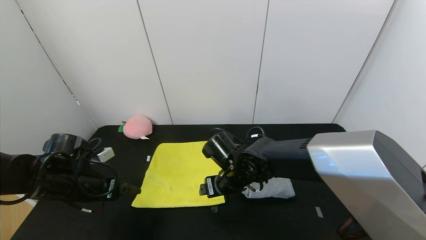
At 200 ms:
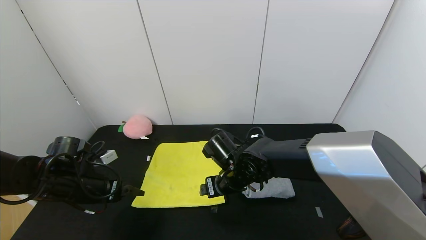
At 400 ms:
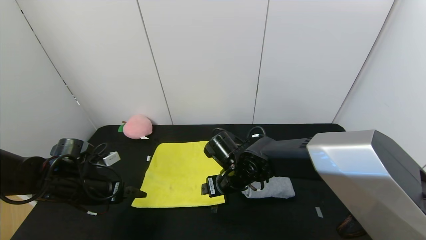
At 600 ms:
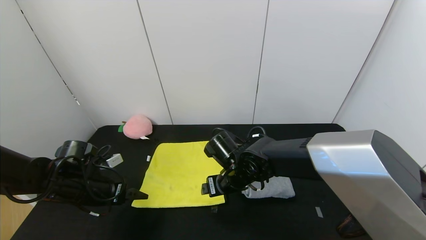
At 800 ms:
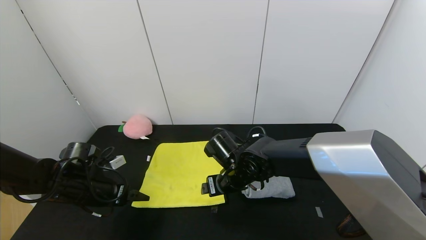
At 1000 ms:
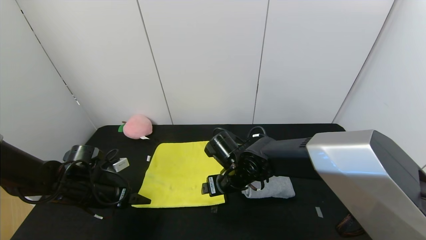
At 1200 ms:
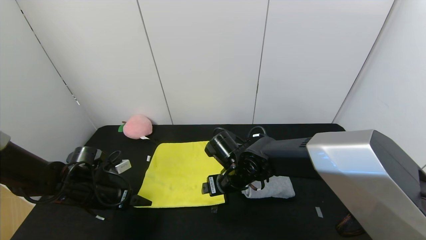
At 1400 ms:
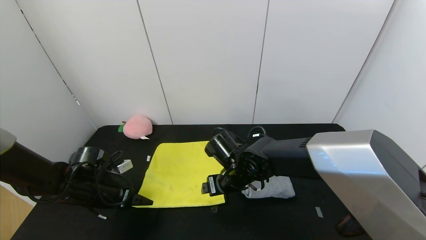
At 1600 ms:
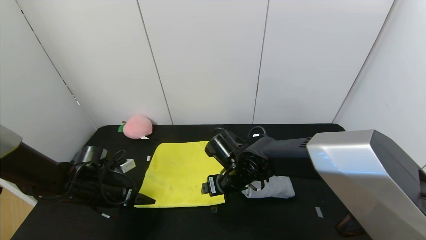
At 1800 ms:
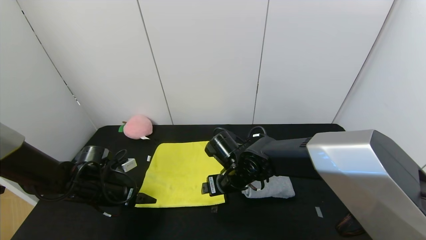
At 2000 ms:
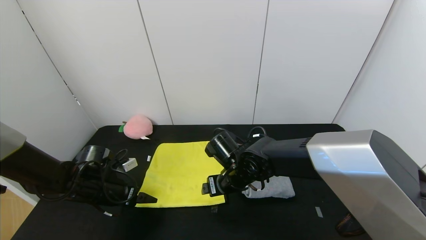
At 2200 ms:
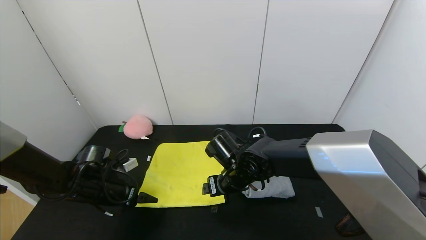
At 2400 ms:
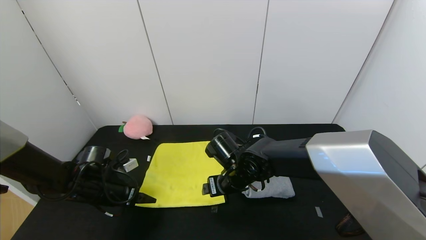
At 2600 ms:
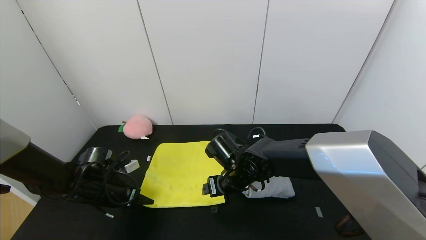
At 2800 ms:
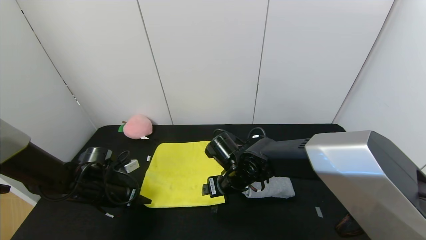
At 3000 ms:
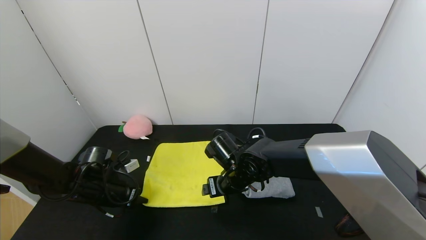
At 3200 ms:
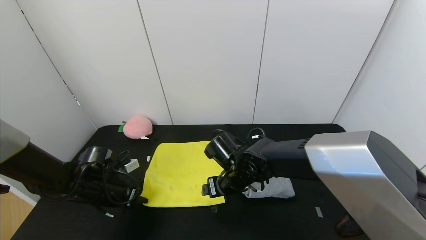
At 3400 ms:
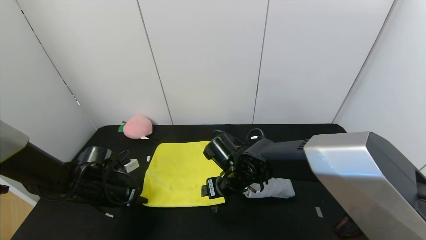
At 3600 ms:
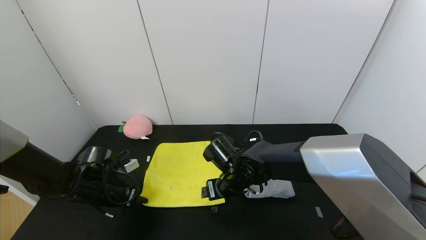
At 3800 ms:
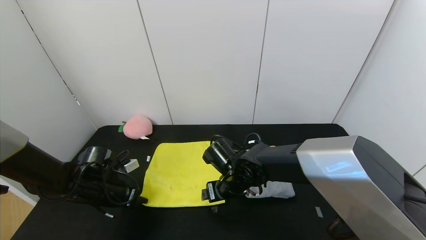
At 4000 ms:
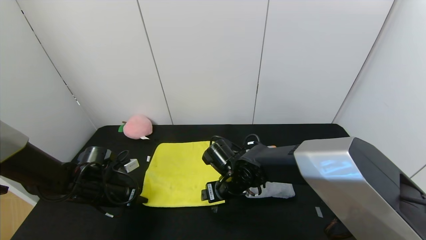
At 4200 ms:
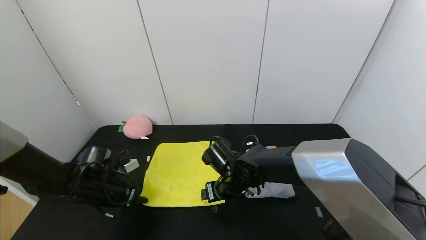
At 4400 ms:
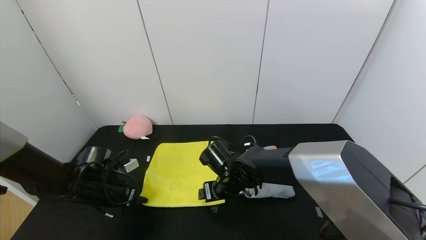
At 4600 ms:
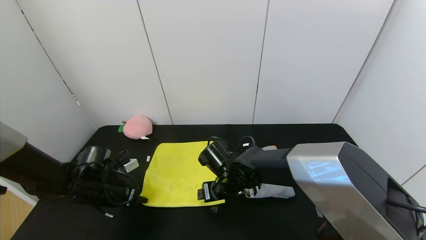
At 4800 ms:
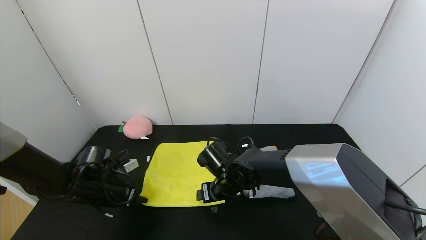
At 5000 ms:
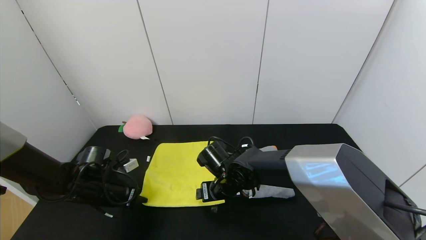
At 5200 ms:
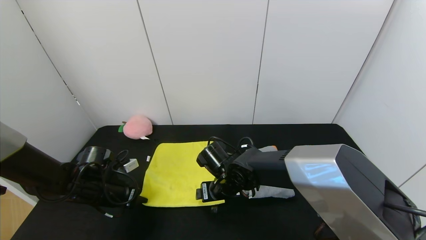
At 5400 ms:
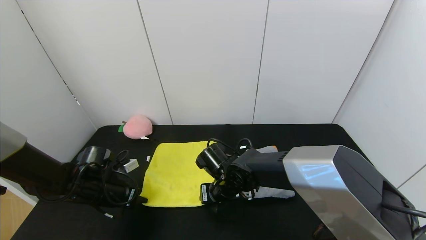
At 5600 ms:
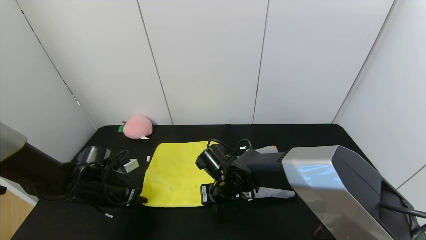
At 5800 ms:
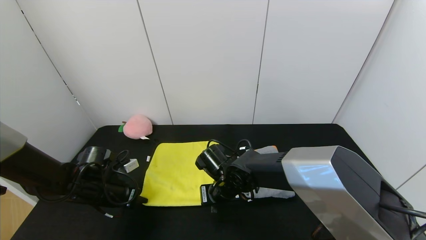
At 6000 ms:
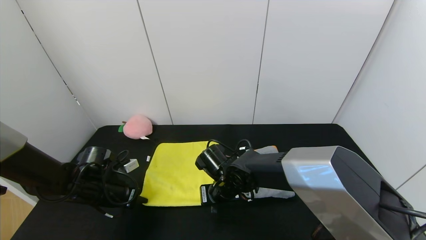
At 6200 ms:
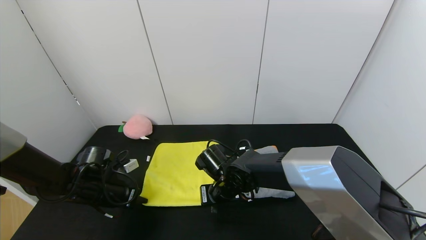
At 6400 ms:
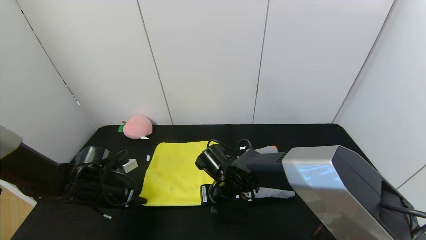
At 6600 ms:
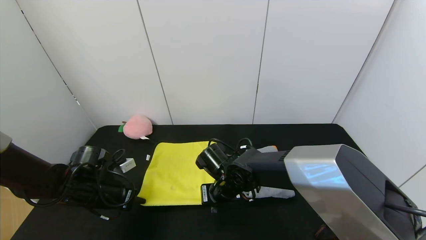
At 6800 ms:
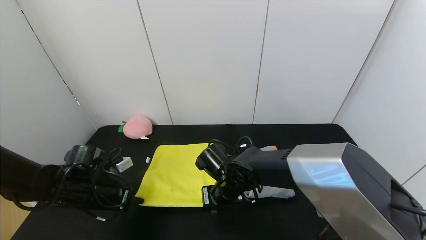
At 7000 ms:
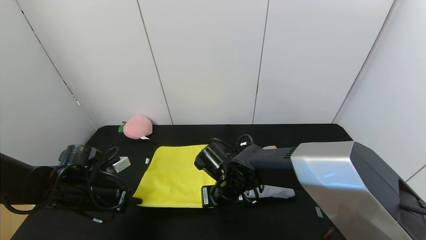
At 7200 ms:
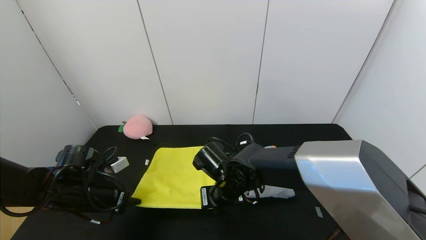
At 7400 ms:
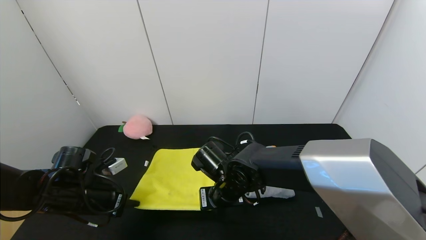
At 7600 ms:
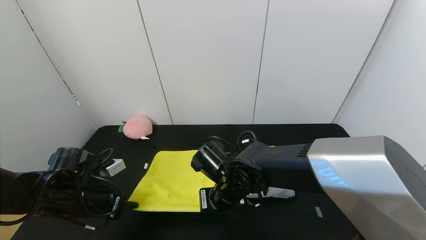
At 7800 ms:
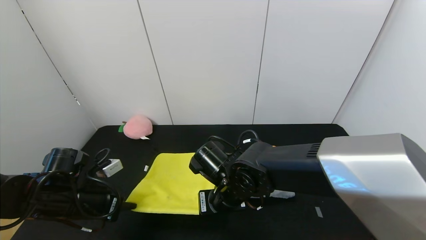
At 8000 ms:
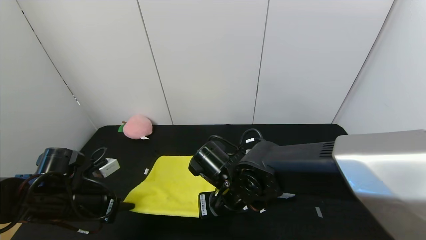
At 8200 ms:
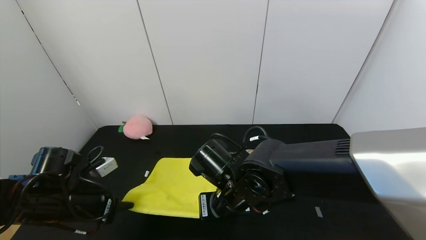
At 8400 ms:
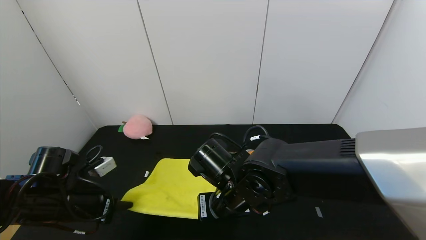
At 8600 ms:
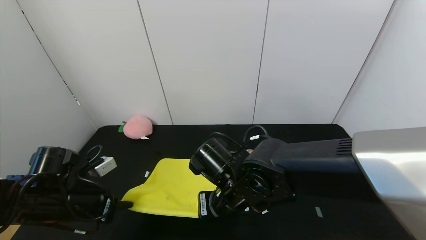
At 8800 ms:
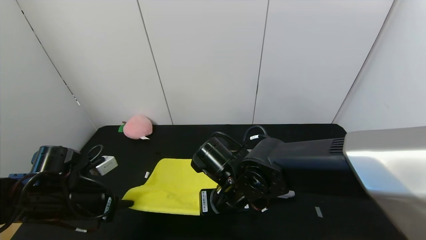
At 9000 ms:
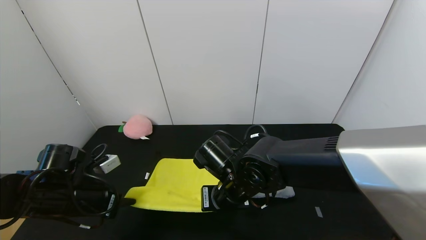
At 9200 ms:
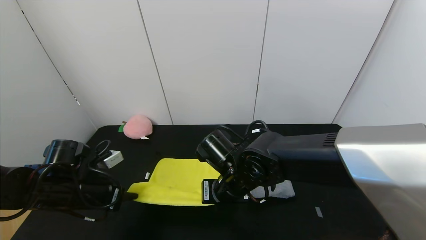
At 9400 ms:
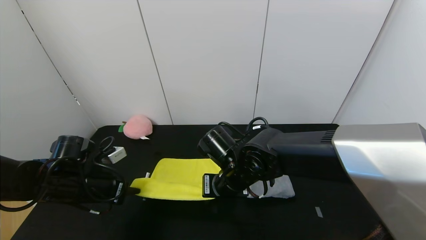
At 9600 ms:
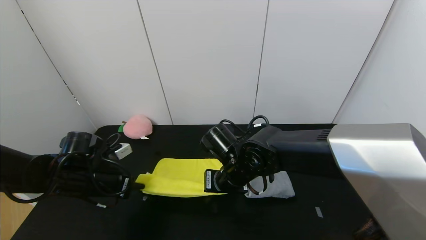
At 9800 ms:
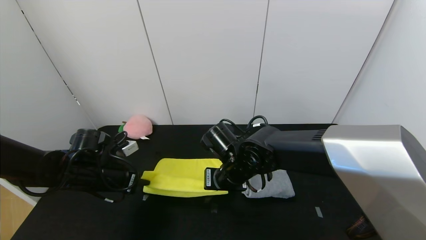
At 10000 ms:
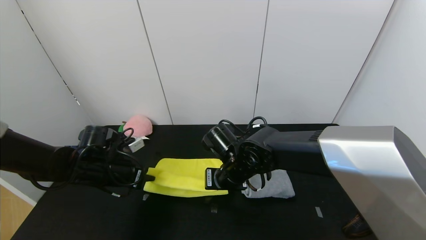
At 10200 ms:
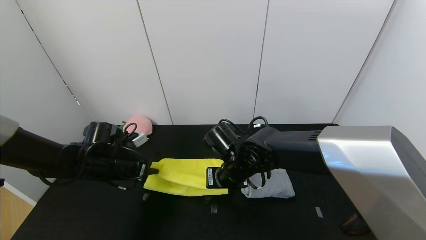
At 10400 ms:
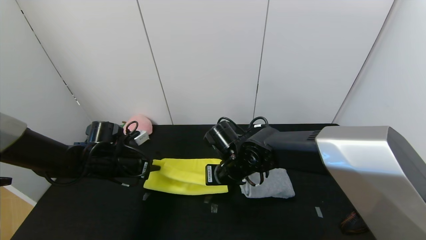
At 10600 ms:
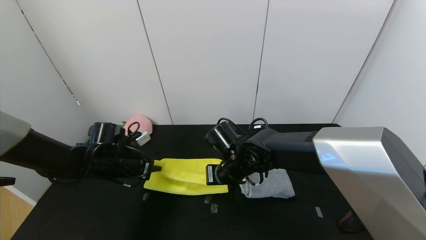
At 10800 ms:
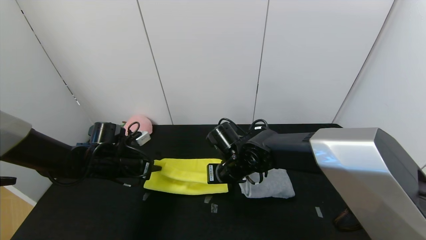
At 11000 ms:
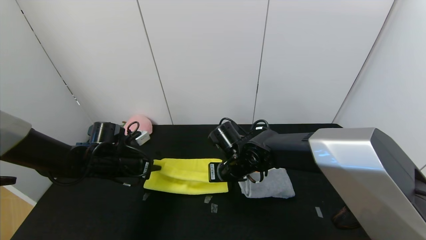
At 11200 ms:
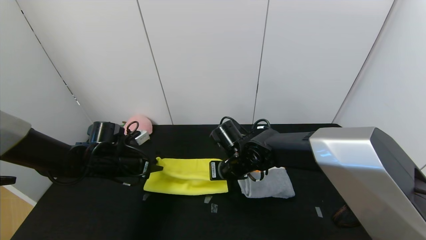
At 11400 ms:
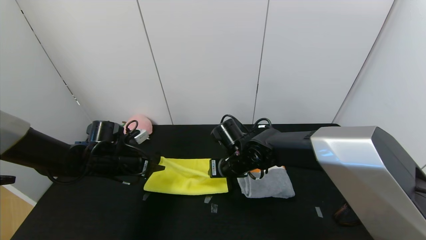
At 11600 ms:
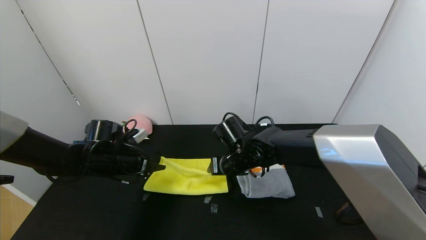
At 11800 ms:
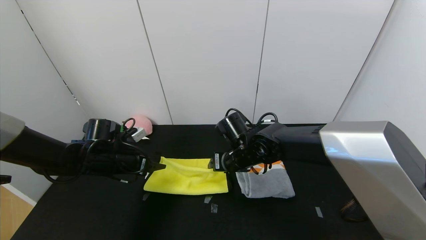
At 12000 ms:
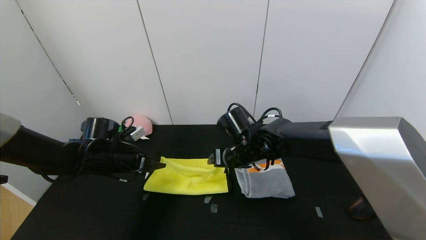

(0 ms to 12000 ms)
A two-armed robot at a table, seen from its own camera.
Task of the whole recording: Use the gripper to fold the yellow towel and grey towel in half twice,then put the yellow towel on the grey towel.
Step, 0 ms - 11800 ms: Fold the yellow towel upwards with the left gripper.
0 ms - 1600 ms: The left gripper shifts some 5 cm downward.
1600 ms - 3000 ms: The left gripper closes up.
3000 ms - 4400 ms: The grippers make only small movements.
4400 ms - 6000 ms: The right gripper closes its fingers.
6000 ms - 7600 ms: The right gripper moves roughly 5 cm. Meanwhile the left gripper shifts some 5 cm backward.
7600 ms - 9000 ms: The grippers stay close to where they were, moving slightly.
9000 ms - 10400 ms: The left gripper is displaced forward by roughly 10 cm, while the right gripper shifts roughly 5 cm forward.
10400 ms - 12000 ms: The right gripper opens up; the left gripper opens.

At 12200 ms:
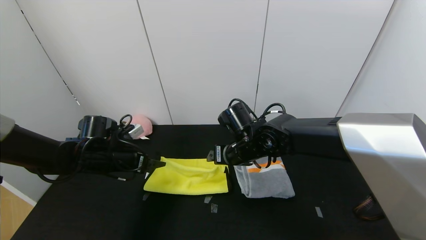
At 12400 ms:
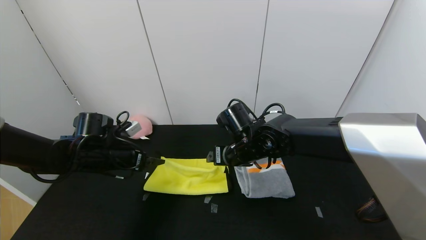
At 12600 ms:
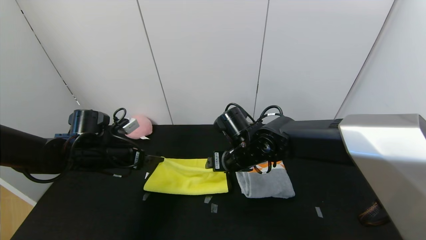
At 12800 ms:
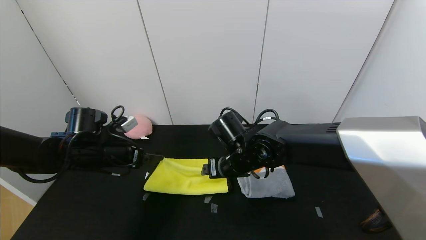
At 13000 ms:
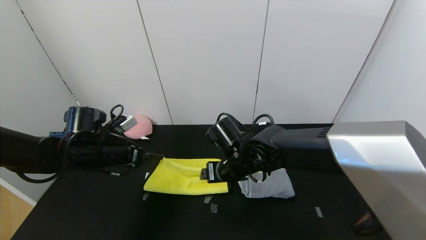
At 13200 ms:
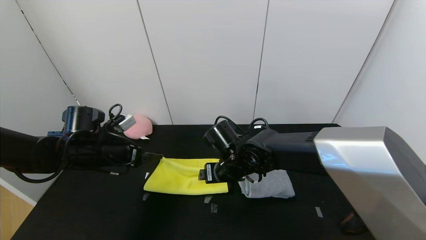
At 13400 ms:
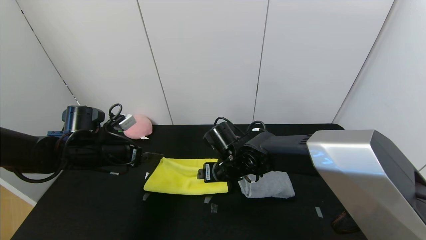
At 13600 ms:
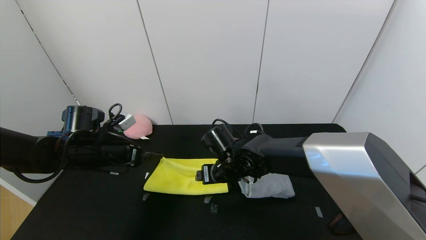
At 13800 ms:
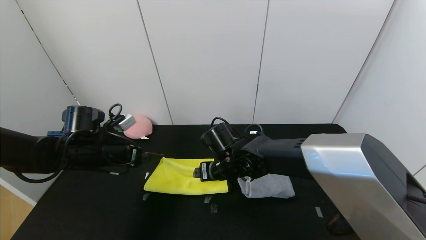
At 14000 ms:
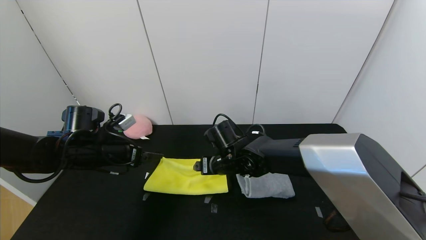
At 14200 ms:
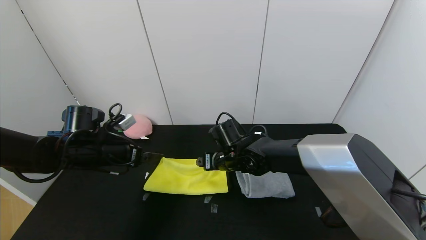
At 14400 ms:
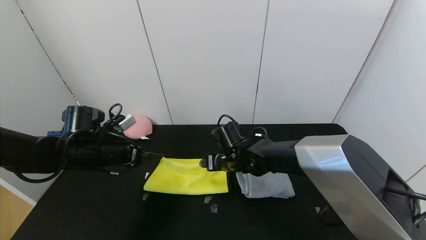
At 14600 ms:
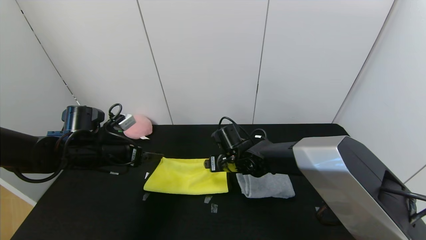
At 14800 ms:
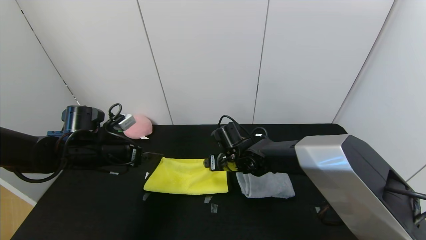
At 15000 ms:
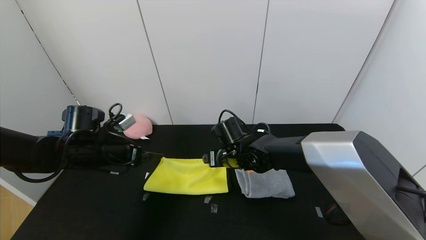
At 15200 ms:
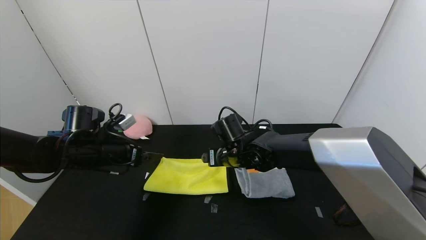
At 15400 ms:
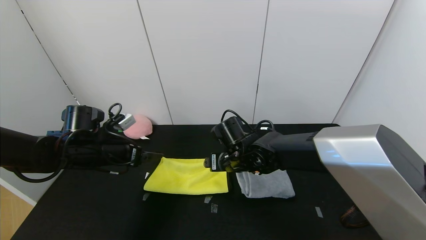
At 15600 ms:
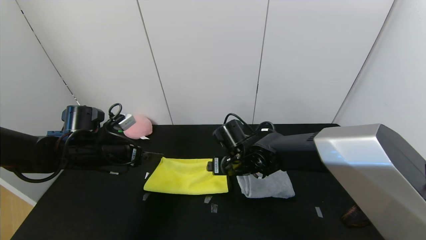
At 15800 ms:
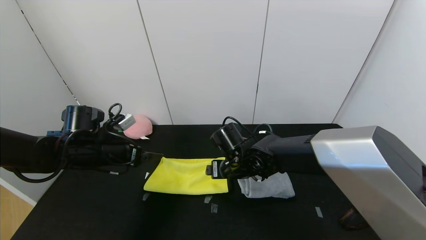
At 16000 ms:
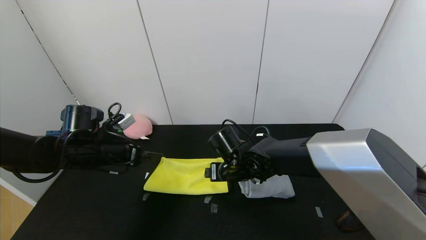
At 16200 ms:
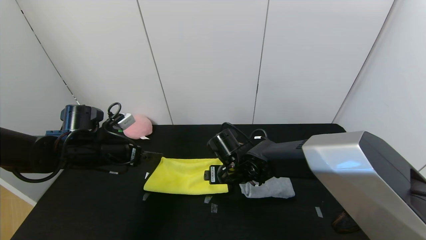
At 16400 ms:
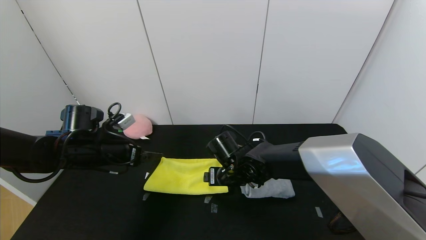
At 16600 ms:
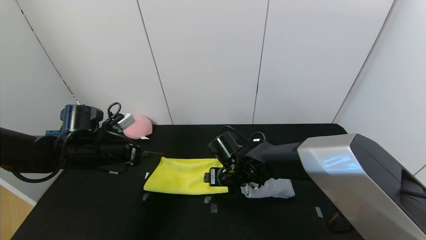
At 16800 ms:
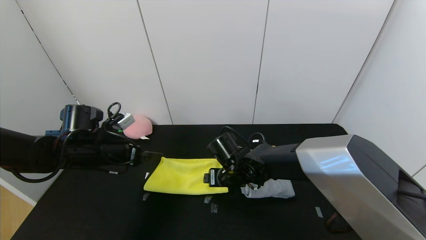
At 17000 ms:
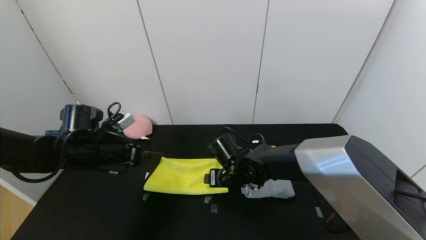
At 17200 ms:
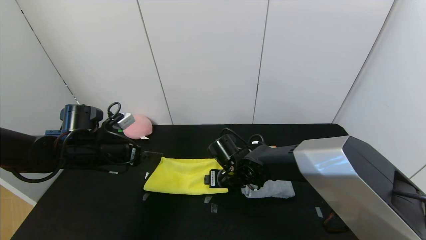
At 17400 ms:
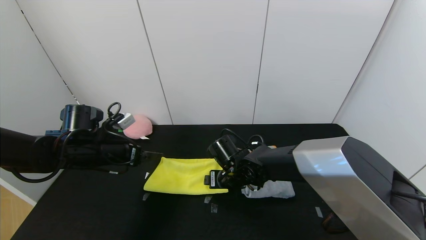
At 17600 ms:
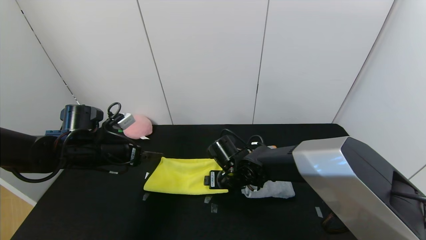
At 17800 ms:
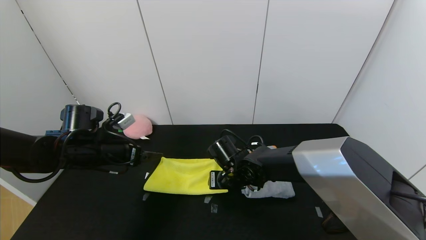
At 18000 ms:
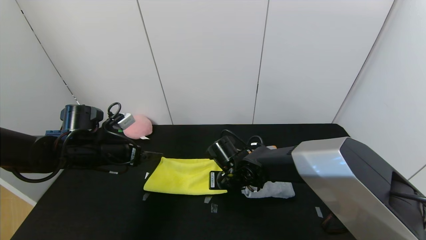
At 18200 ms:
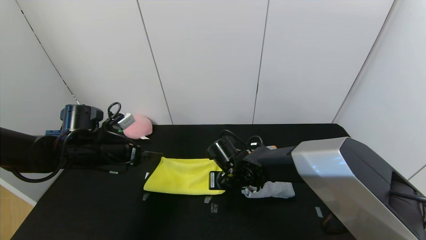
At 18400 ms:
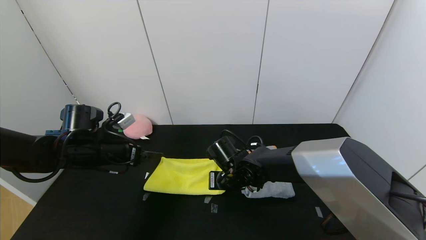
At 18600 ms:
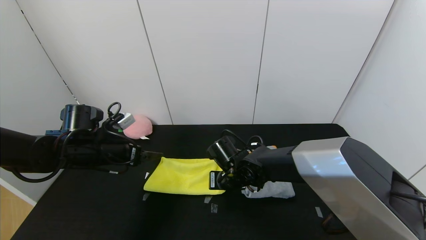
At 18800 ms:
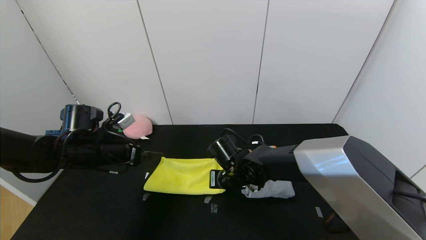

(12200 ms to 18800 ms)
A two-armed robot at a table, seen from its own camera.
Task of the whole recording: Use the gripper to fold the yellow towel and grey towel in half twice,then put the yellow towel on the grey towel.
12200 ms - 13800 ms: The right gripper shifts by about 5 cm.
13800 ms - 17200 ms: The grippers stay close to where they were, moving slightly.
